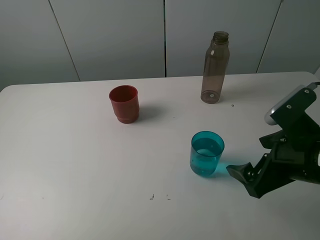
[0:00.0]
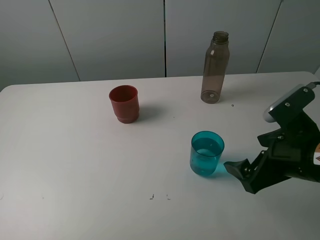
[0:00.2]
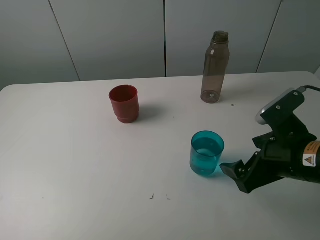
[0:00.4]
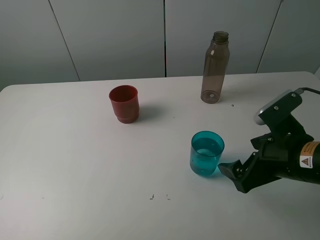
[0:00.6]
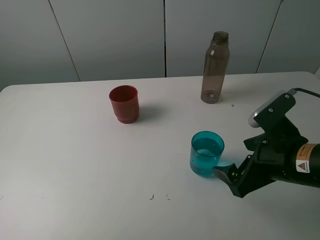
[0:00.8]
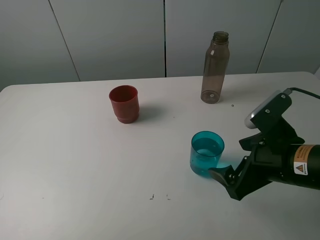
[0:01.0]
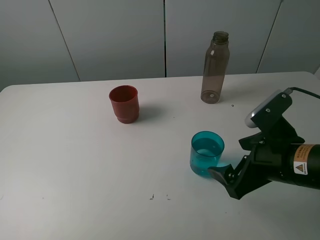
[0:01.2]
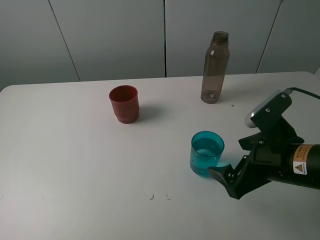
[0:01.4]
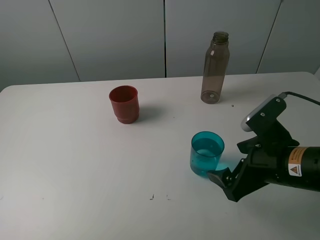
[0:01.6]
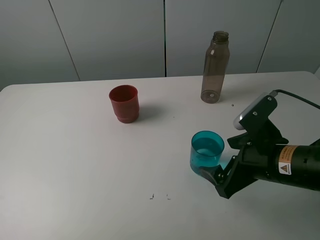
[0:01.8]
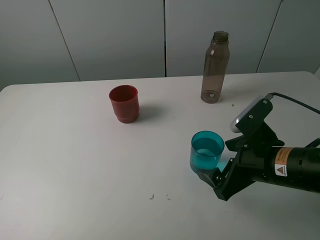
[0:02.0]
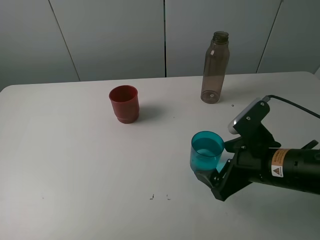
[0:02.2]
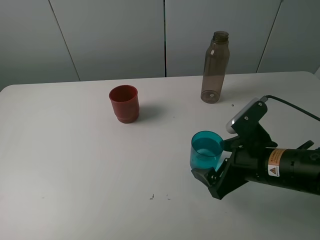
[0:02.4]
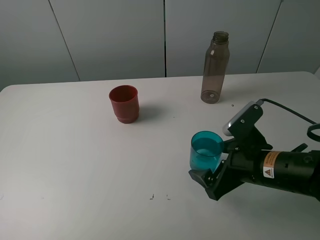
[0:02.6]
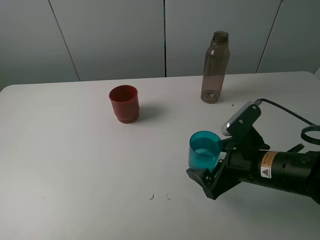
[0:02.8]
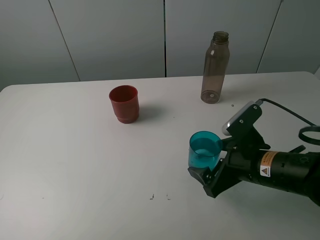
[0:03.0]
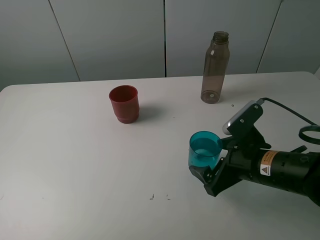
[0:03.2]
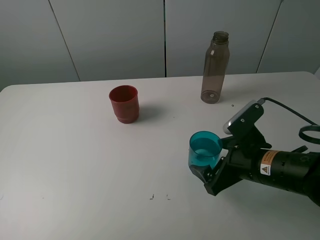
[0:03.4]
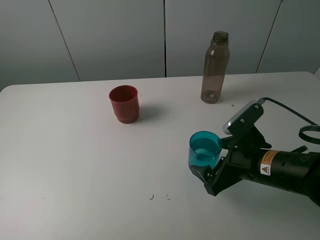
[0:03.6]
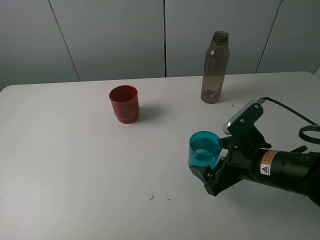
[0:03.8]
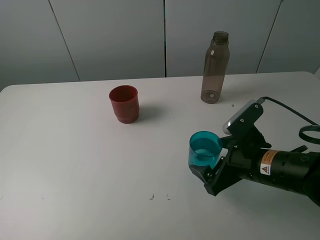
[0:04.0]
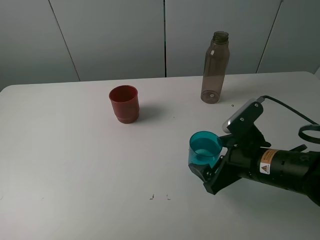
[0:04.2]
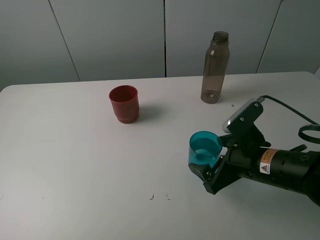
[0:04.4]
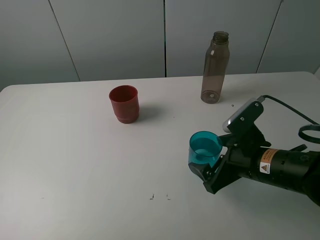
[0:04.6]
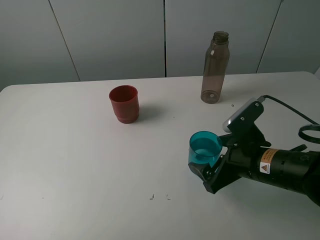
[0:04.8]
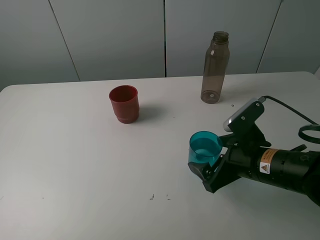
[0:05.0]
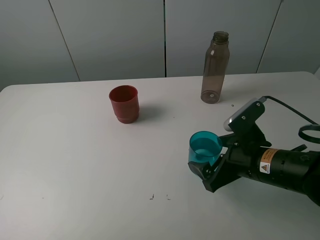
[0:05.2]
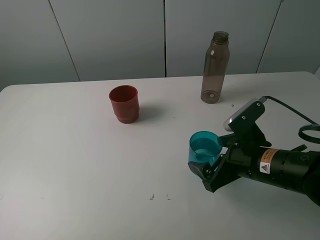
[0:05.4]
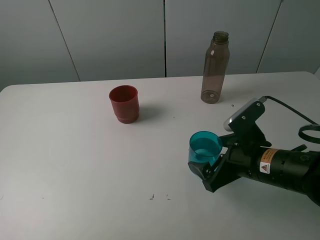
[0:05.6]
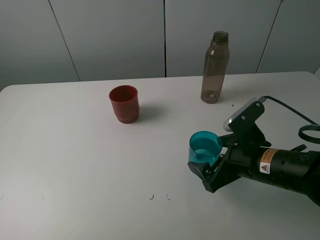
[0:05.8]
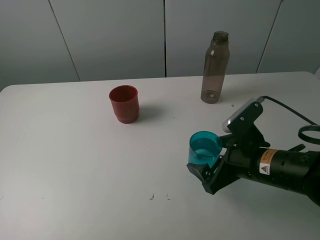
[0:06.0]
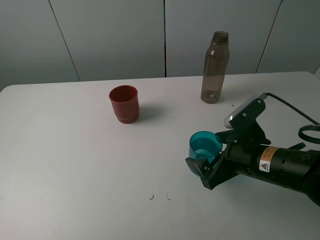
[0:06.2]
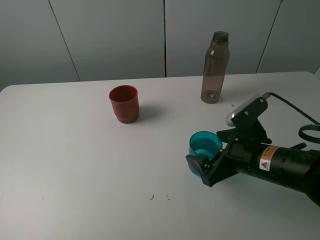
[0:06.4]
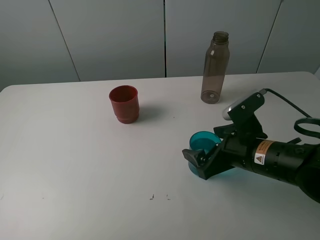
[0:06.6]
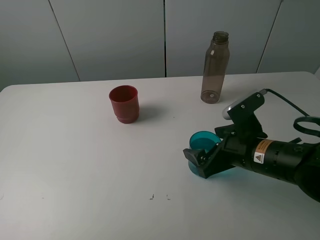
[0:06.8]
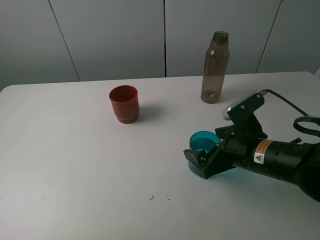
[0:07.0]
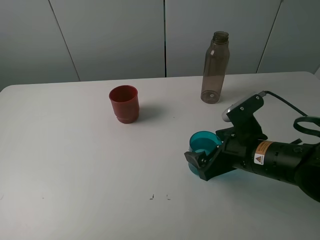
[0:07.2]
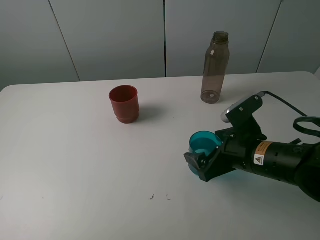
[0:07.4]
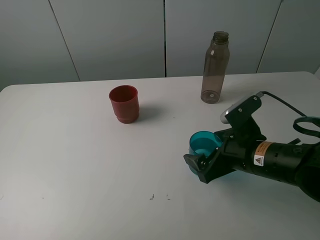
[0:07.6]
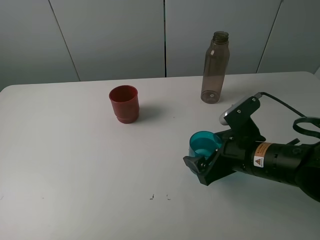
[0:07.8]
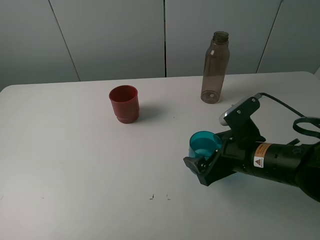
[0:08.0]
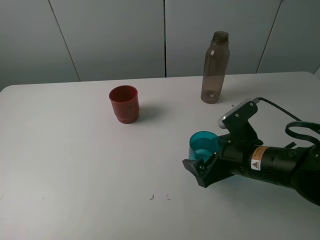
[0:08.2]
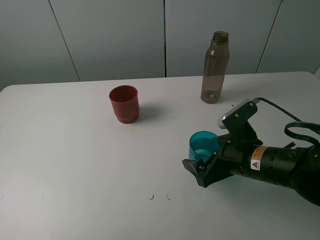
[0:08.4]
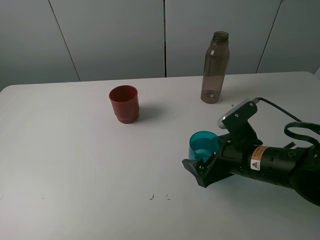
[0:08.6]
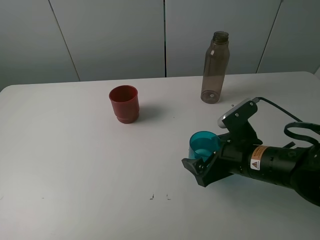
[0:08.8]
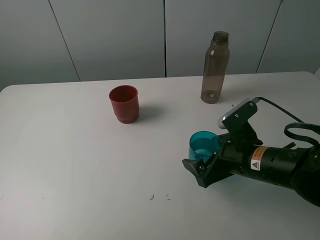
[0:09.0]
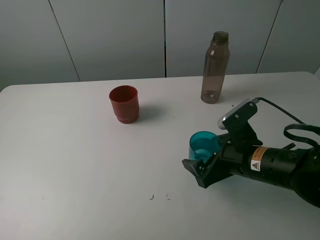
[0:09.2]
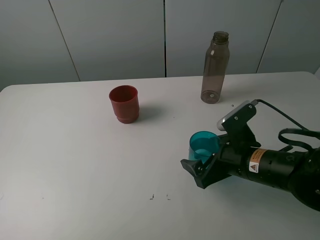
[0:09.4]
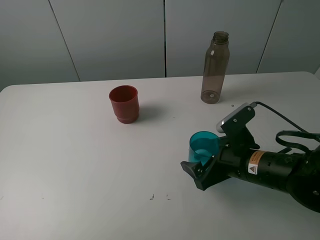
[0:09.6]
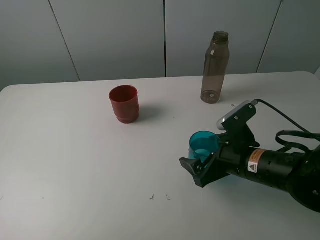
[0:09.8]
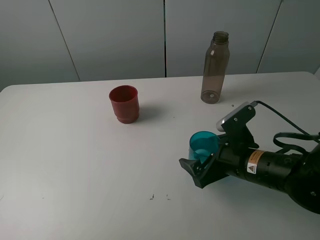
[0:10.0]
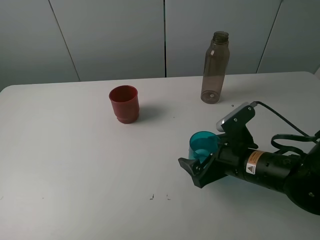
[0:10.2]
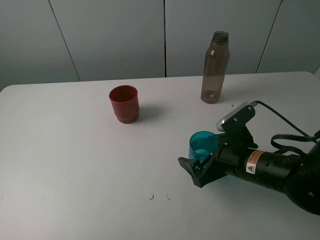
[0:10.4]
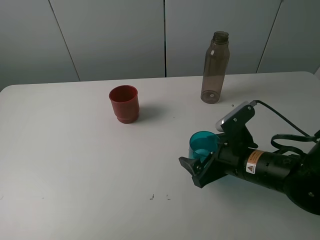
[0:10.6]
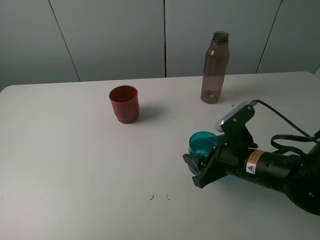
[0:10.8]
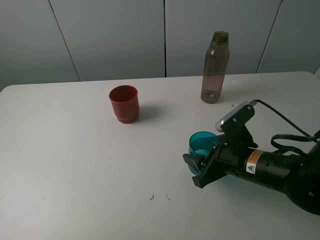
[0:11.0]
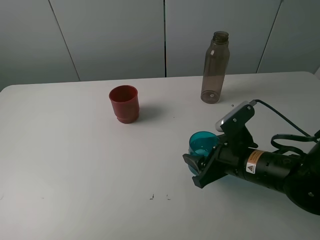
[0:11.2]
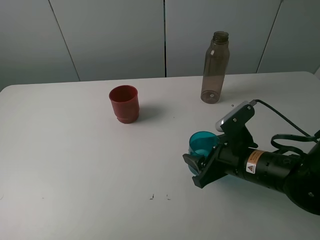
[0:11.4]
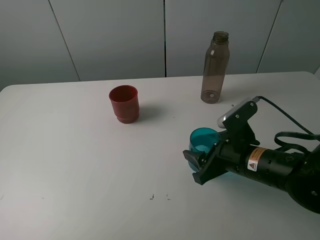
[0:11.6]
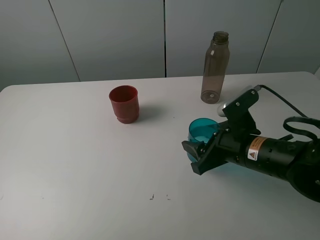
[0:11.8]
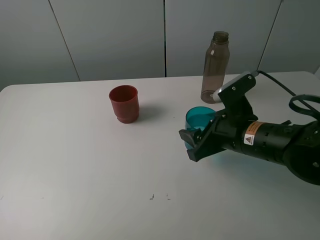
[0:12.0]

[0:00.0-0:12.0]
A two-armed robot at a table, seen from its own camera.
Task of the whole recording: pick up the bottle and pour water into the cup, then pick up the cup containing water and pour it into another cup.
Step, 0:00.0 to 0:10.8: Grasp the blue cup with the right gripper.
0:00.0 to 0:01.6: The grippers make only small movements.
0:01.6 to 0:03.0: There are only small adjustments of the grippers.
0:03.0 to 0:06.0: Neither gripper changes place.
0:06.0 to 0:07.6: The grippers stay close to where they were, moving slightly.
0:07.6 to 0:09.0: Both grippers stay about where they are.
0:09.0 to 0:10.4: The grippers stay close to where they were, moving slightly.
0:10.4 to 0:12.0: The right gripper travels upward by about 5 cm, and closes.

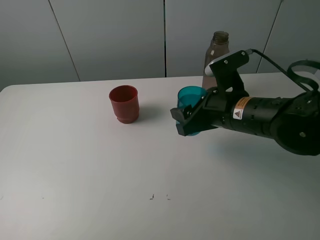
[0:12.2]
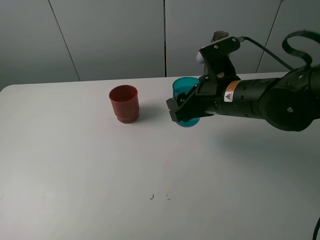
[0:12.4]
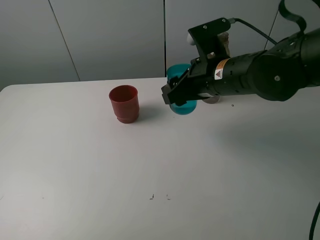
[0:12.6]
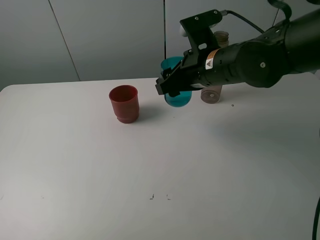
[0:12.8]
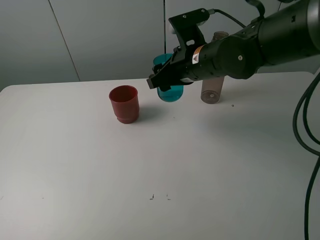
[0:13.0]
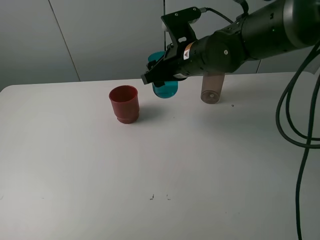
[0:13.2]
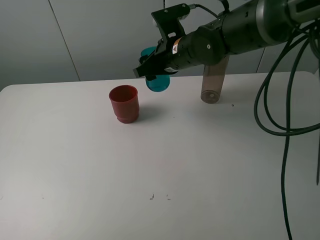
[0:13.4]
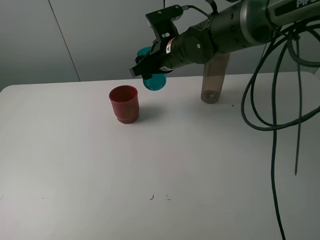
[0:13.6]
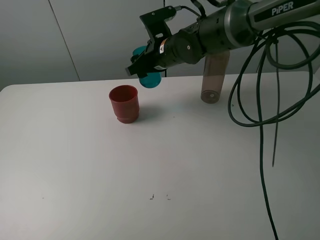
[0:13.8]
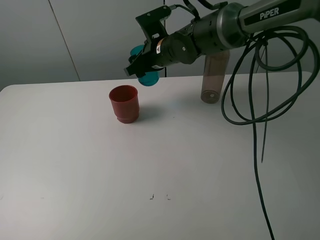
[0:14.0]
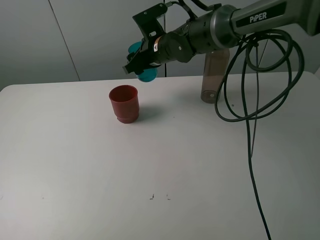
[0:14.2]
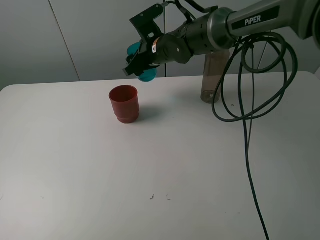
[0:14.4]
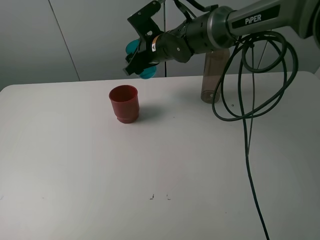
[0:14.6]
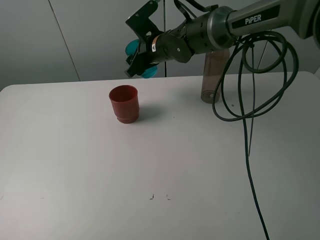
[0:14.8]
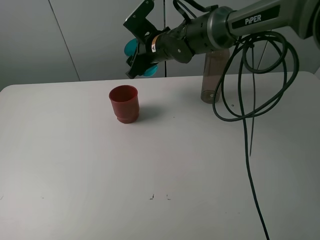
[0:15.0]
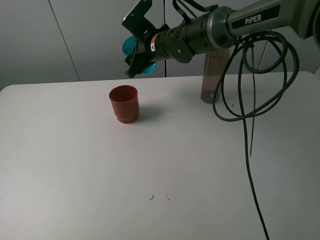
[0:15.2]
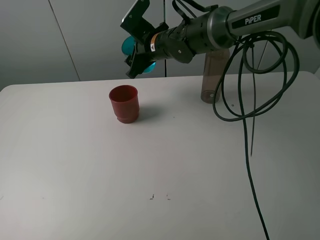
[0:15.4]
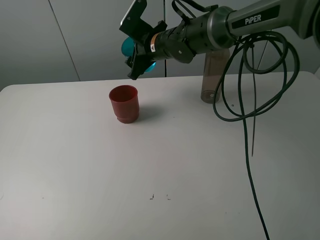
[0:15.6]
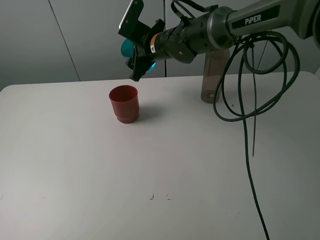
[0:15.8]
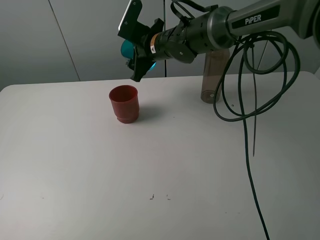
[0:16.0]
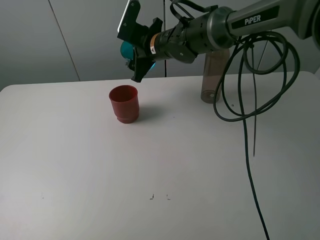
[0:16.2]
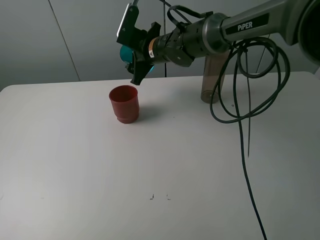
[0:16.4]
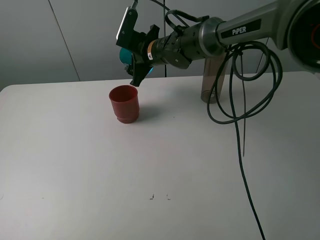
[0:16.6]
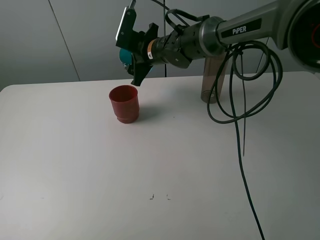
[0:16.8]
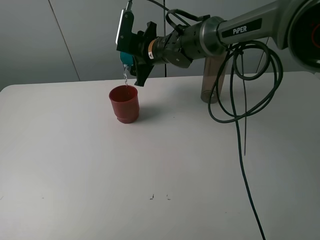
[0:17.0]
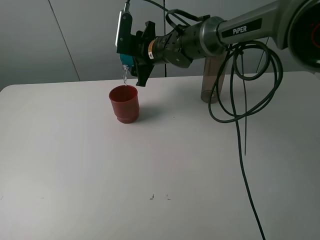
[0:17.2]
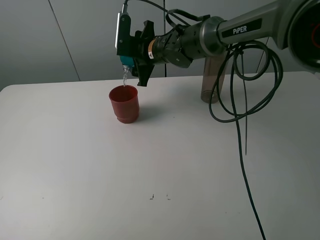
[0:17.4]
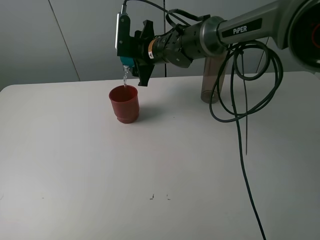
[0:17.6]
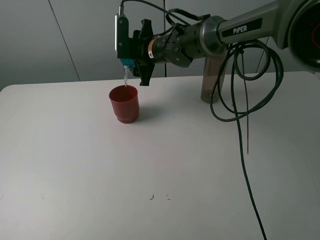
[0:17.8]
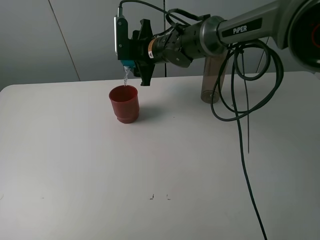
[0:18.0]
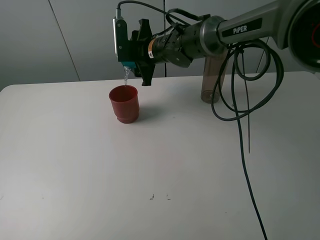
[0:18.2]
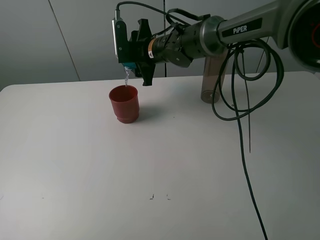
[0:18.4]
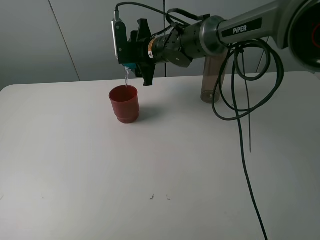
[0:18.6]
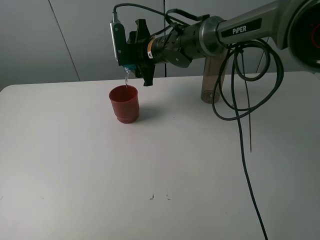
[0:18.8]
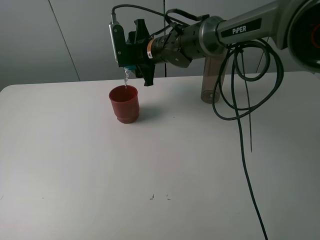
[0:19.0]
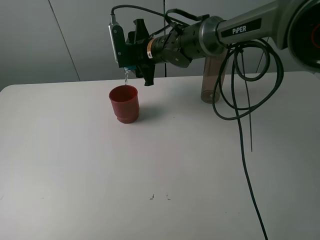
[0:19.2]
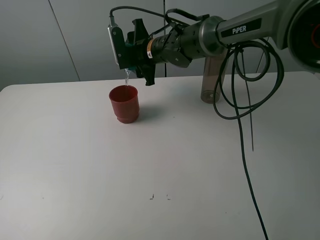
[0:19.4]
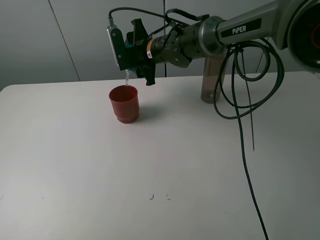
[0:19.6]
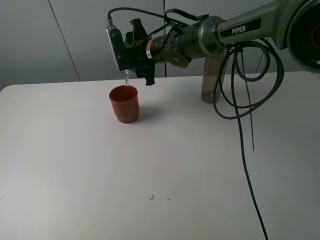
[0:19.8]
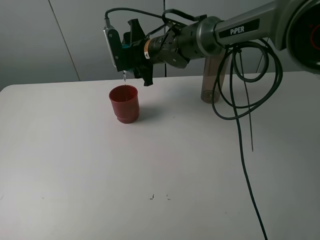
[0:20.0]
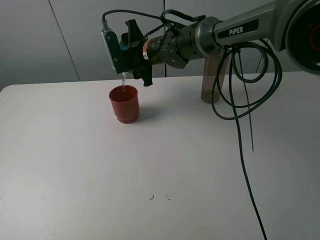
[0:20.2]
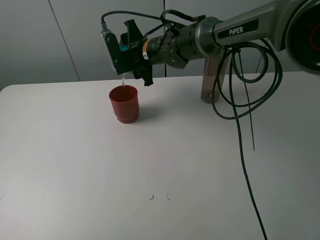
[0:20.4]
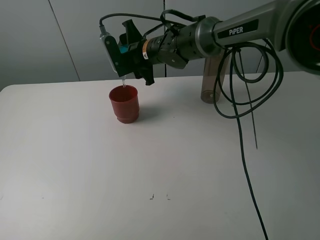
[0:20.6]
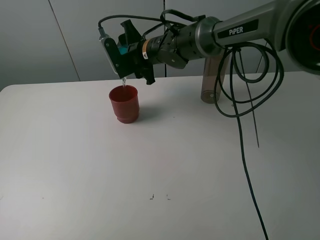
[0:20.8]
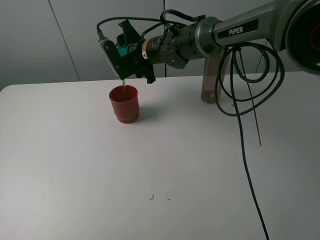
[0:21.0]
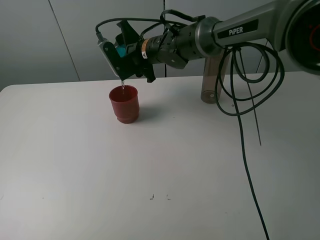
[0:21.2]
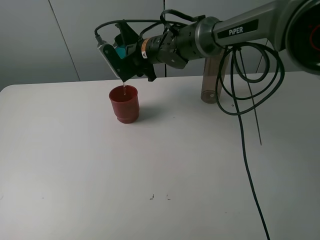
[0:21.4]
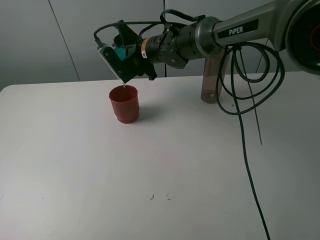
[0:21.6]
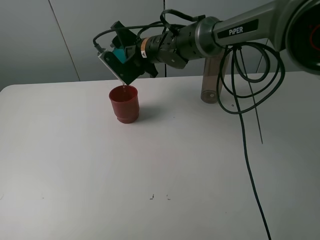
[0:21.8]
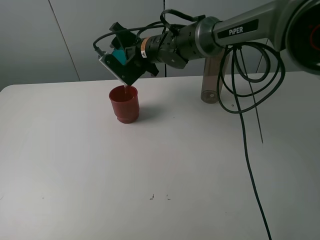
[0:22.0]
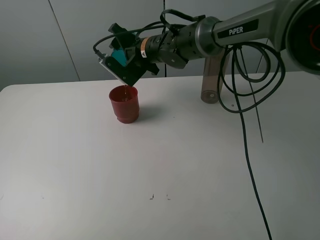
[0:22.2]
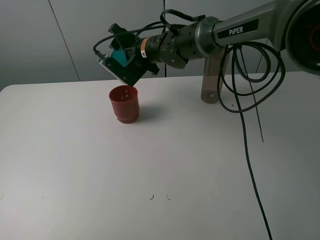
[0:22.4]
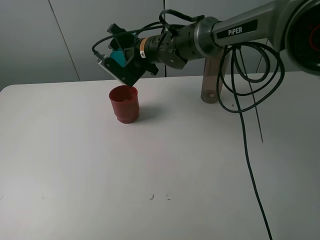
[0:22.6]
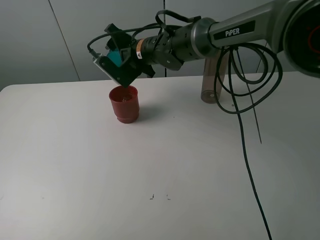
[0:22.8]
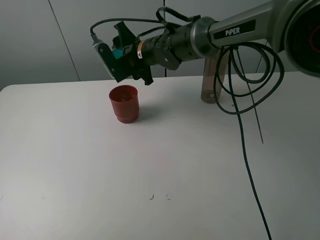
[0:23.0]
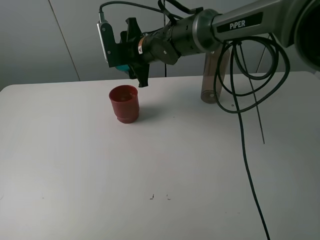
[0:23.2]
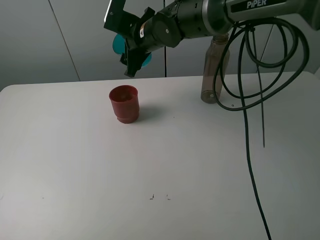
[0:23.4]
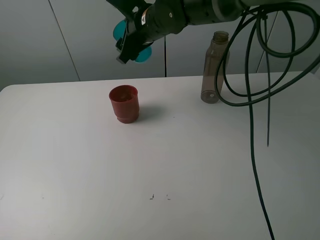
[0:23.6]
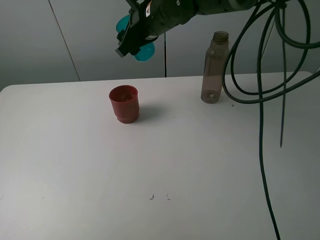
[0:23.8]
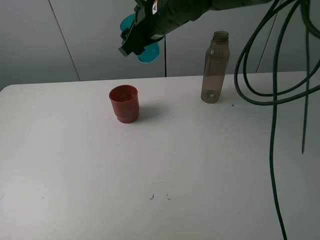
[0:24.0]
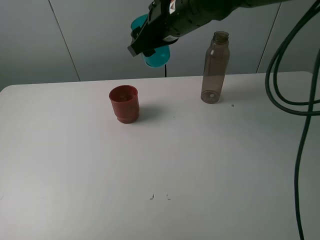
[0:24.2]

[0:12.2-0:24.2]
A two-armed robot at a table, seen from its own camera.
Task of the whole recording: pick up the bottle and pour water into the cup, then pick up the cup containing water and pour it into another cup.
Step, 0:12.2 to 0:22.0: Pour water from blue cup to red cup with the right gripper.
0:12.2 to 0:13.8: The right gripper heads forward and to the left, covering roughly 20 cm.
0:15.2 to 0:16.6: There are only small adjustments of the grippers.
0:18.2 to 0:19.8: The grippers move only a little.
0:19.8 to 0:21.2: The grippers make only small movements.
0:21.2 to 0:22.6: The grippers make only small movements.
0:22.6 to 0:24.2: The right gripper travels upward, backward and to the right by about 15 cm.
